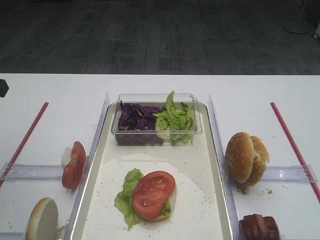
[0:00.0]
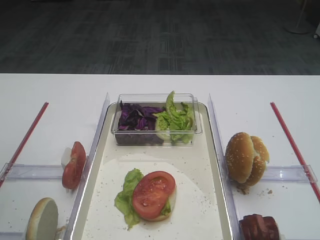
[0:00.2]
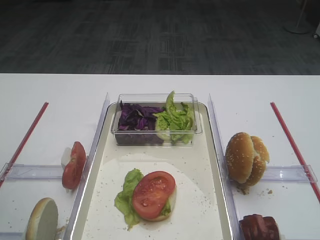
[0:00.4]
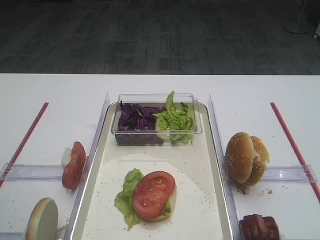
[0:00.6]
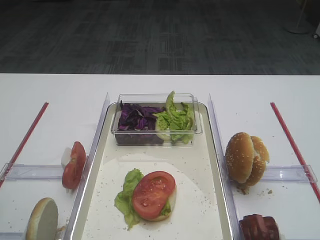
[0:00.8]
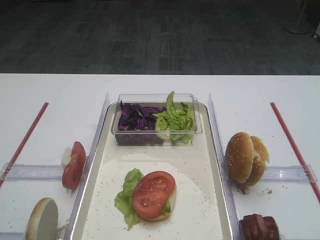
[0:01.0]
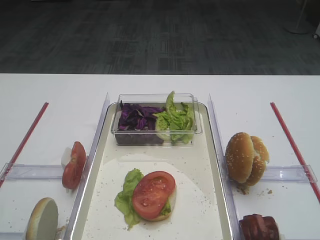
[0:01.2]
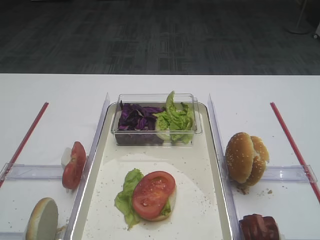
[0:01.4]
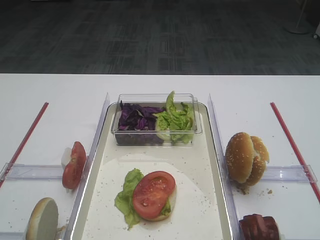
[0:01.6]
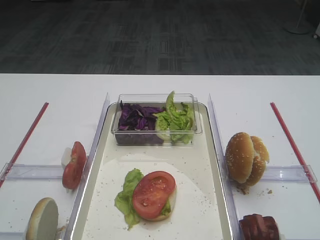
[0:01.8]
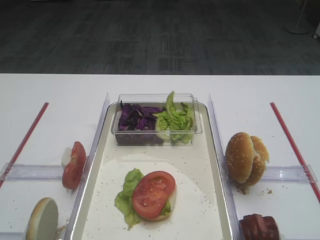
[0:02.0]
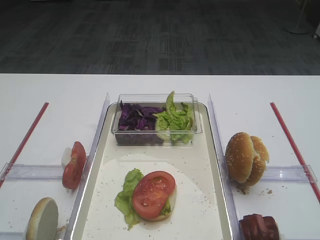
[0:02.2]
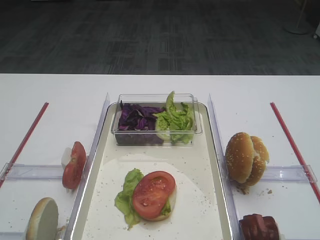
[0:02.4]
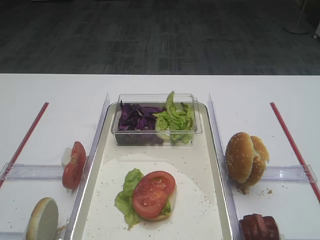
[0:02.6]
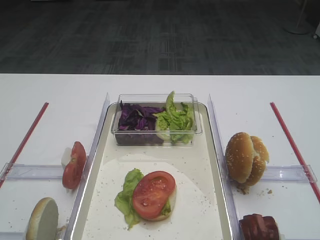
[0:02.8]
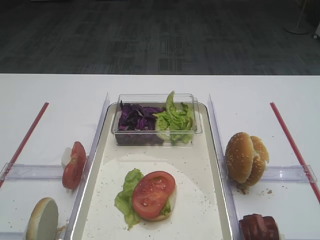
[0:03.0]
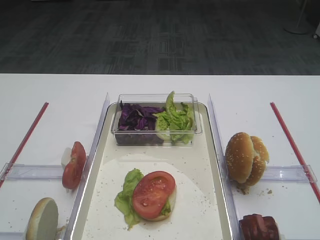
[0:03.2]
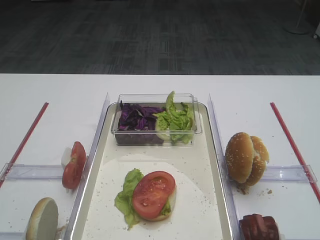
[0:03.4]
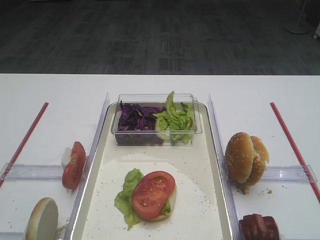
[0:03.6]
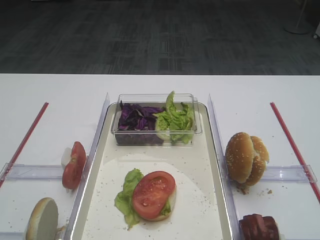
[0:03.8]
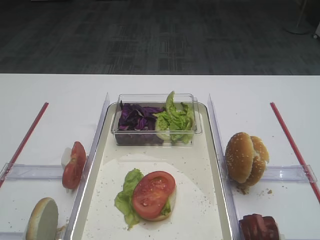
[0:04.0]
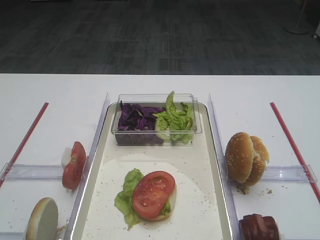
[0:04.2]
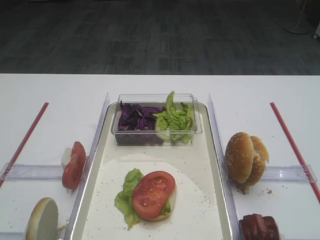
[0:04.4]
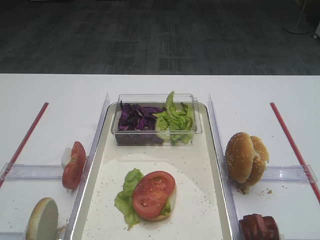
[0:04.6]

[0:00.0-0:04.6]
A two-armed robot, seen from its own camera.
0:00.0 to 0:01.6: The left gripper shifts approximately 25 cm backward.
0:03.0 to 0:04.6: Neither gripper changes place.

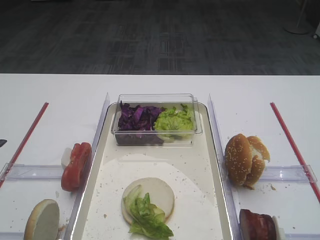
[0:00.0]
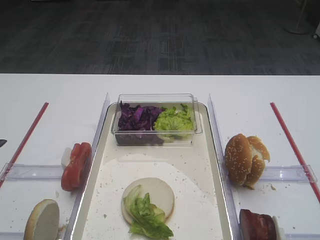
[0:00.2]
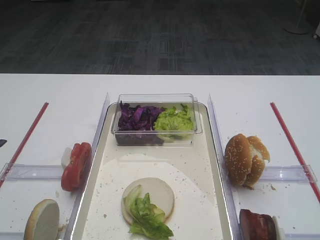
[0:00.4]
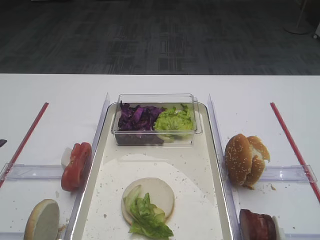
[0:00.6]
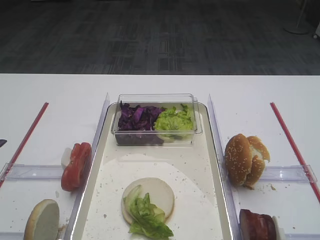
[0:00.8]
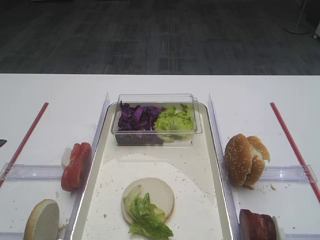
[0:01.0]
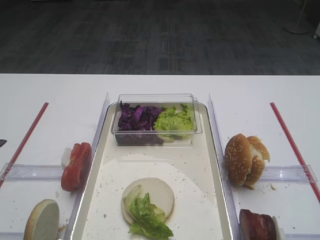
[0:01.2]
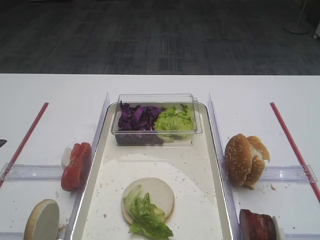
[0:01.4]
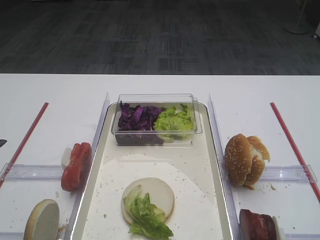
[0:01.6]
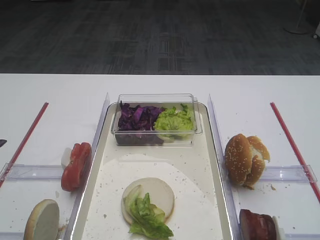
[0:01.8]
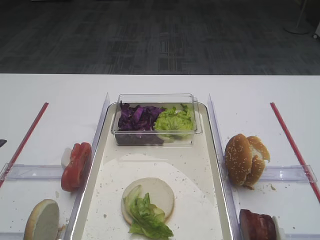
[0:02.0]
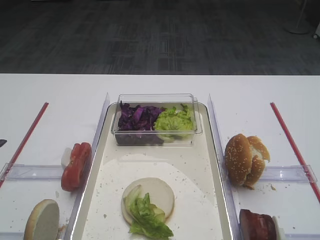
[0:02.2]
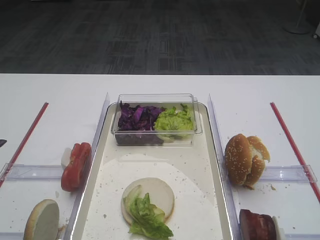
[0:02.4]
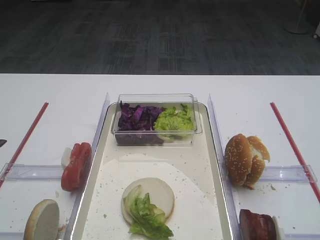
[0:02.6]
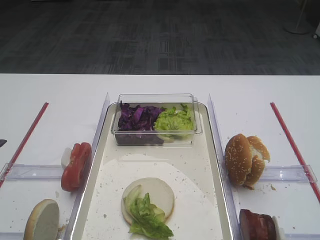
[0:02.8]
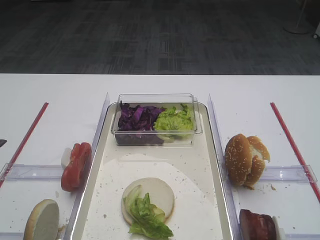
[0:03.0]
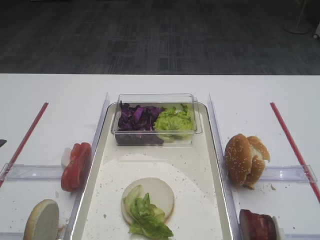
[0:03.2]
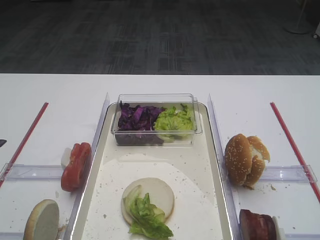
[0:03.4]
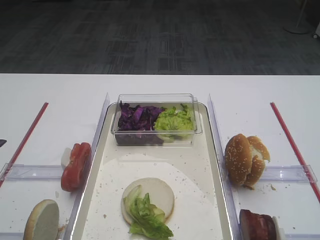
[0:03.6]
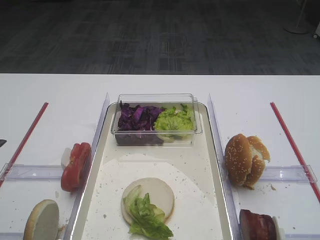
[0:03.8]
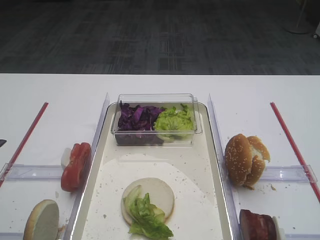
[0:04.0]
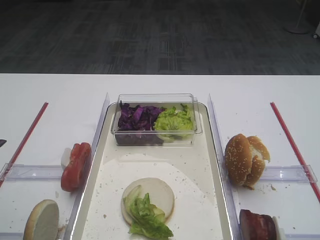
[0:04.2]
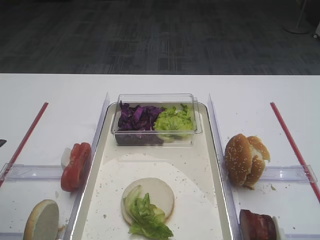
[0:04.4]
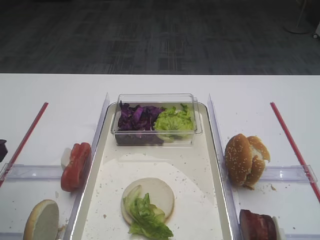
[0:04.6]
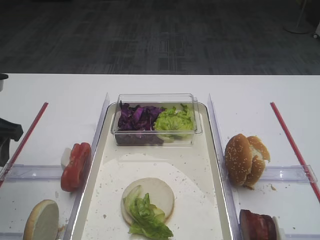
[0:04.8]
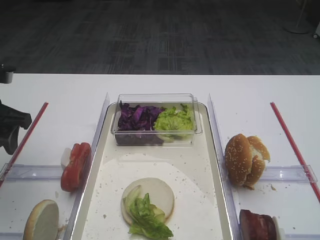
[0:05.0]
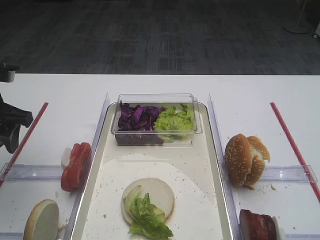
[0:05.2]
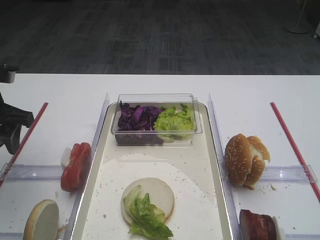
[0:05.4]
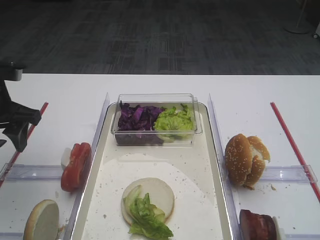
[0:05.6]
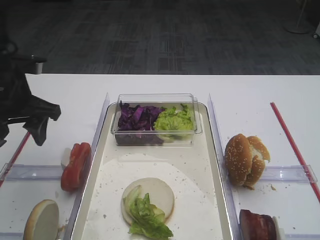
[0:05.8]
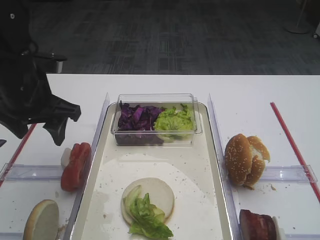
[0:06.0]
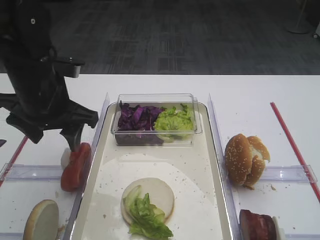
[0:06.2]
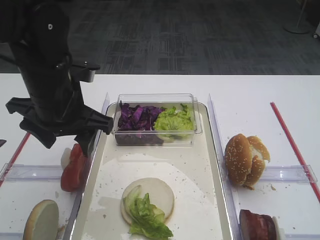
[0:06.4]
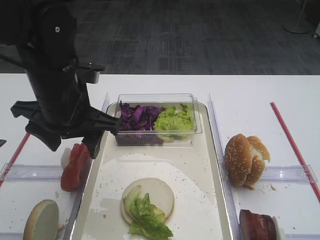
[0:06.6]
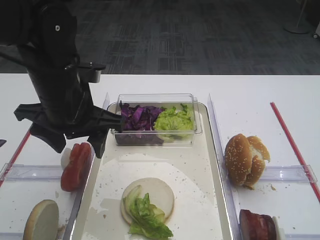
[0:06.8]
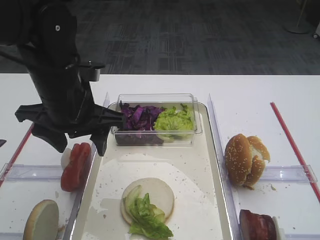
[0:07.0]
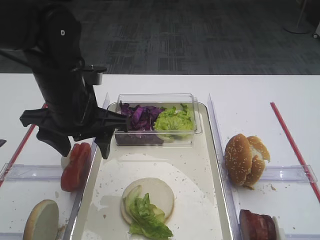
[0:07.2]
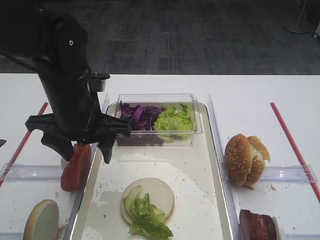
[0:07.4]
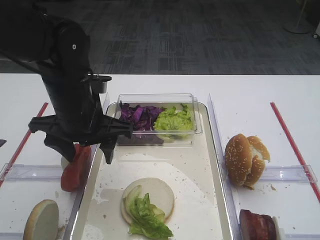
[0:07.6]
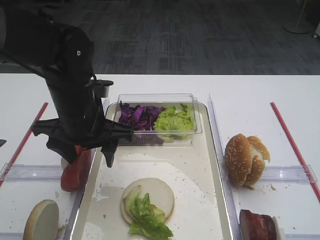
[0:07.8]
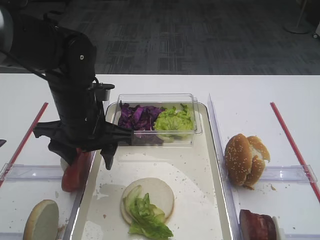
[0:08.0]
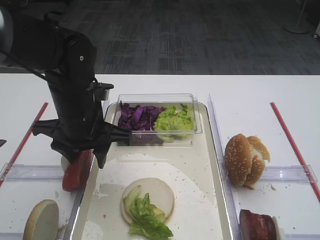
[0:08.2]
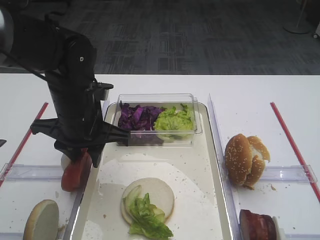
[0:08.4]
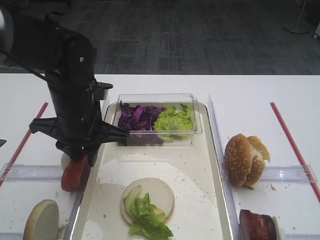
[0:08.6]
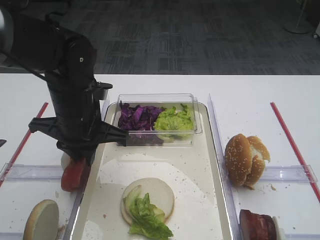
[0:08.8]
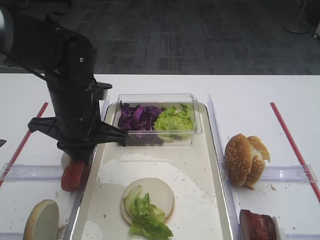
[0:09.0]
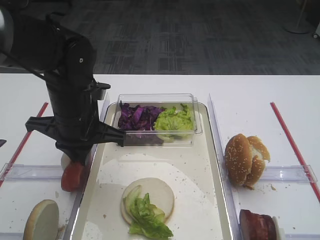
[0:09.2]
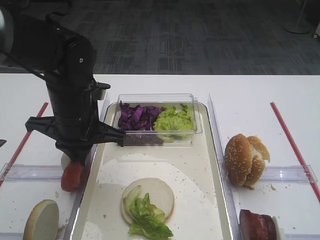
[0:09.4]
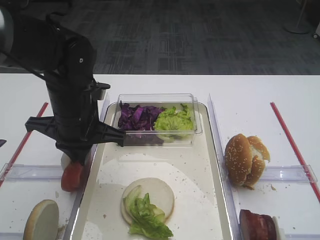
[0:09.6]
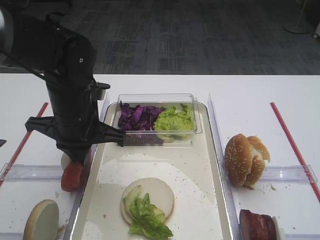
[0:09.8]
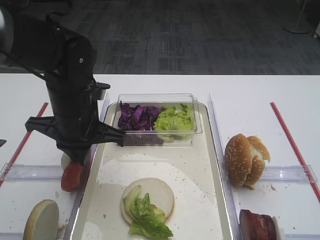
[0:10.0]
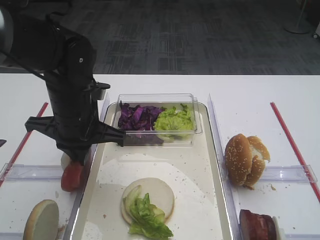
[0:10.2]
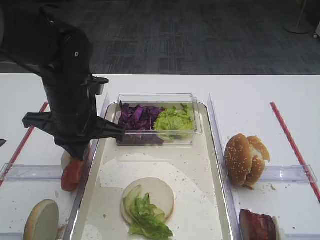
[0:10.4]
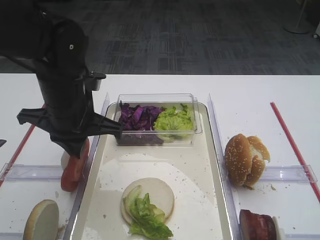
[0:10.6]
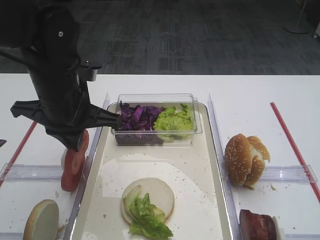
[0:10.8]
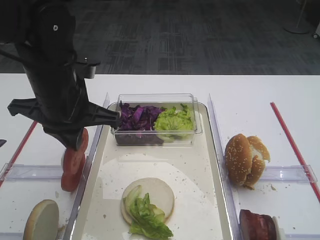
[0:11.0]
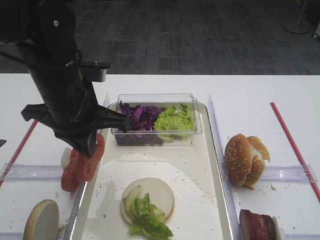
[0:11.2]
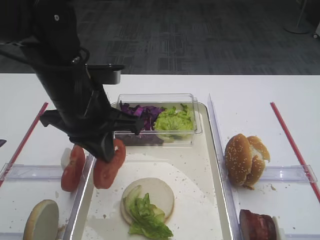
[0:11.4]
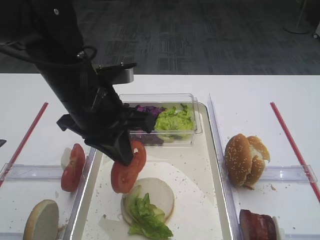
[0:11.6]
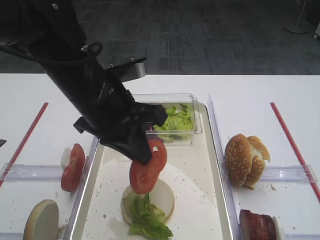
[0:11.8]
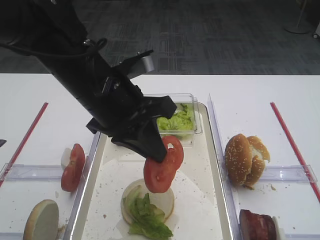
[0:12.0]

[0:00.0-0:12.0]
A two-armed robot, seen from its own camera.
Step, 0:00.0 to 0:10.6: Pick up the tomato slice with the left gripper.
0:04.4 to 0:06.0: The left gripper moves forward and to the right, some 15 cm.
0:06.0 to 0:07.6: The left gripper heads to the right, covering some 10 cm.
0:07.6 to 0:09.0: The left gripper closes.
0:09.0 to 0:10.4: Both grippers stay about where they are.
0:10.4 to 0:12.0: The left gripper is displaced upward and to the right by roughly 10 cm.

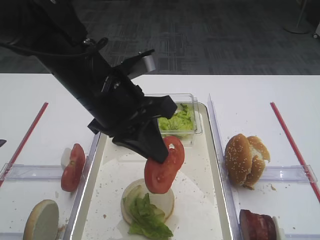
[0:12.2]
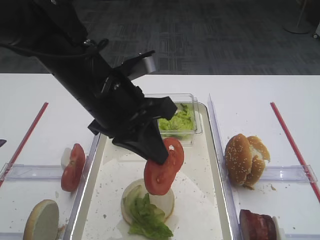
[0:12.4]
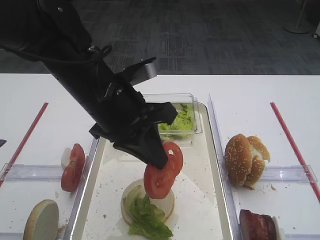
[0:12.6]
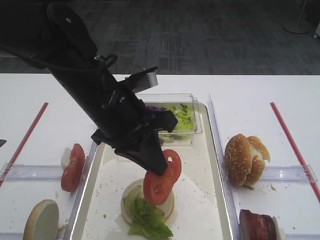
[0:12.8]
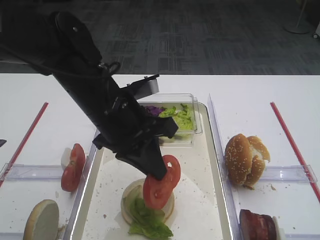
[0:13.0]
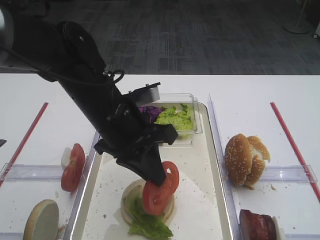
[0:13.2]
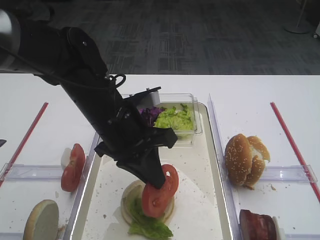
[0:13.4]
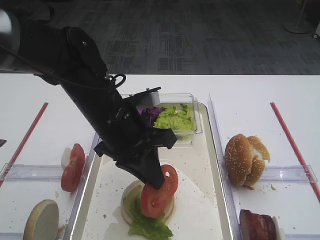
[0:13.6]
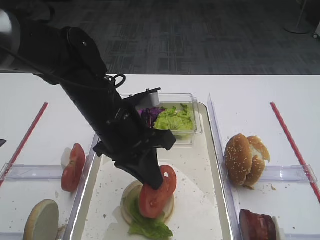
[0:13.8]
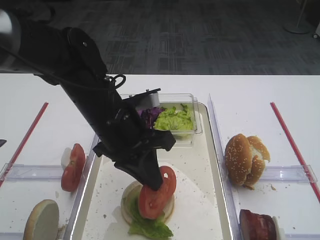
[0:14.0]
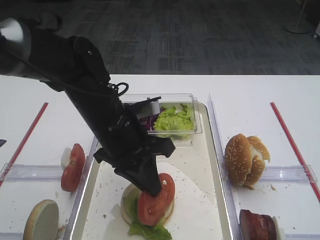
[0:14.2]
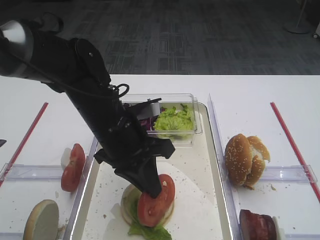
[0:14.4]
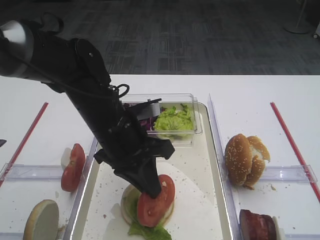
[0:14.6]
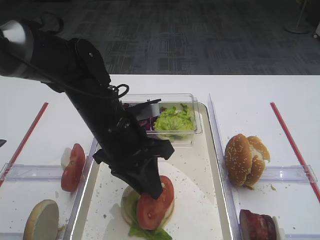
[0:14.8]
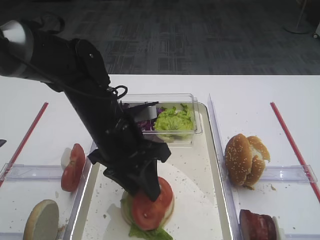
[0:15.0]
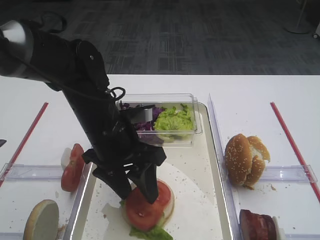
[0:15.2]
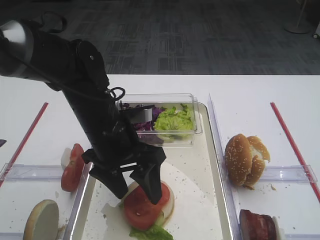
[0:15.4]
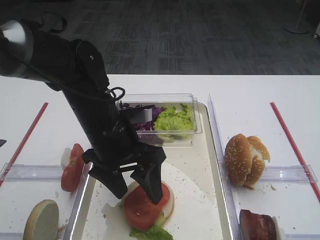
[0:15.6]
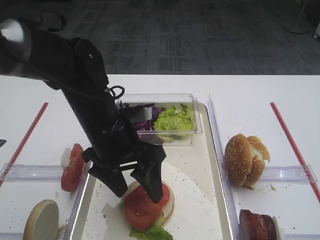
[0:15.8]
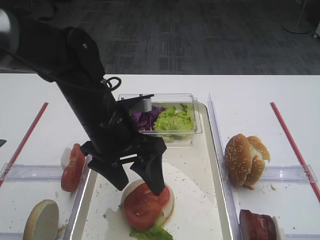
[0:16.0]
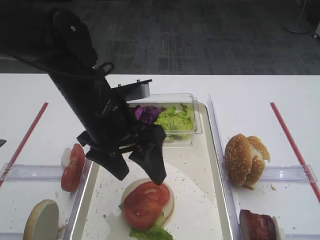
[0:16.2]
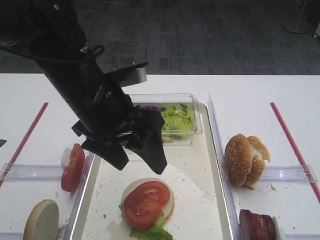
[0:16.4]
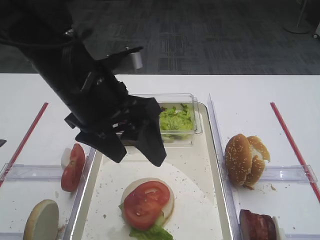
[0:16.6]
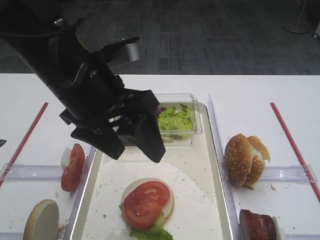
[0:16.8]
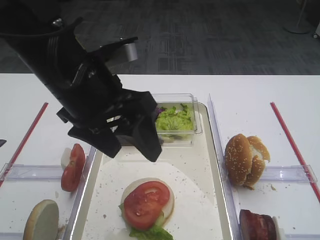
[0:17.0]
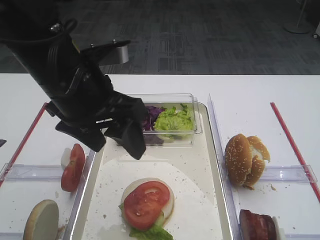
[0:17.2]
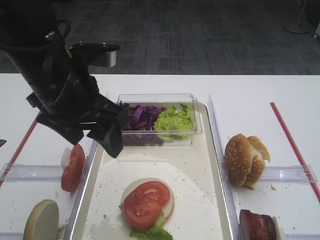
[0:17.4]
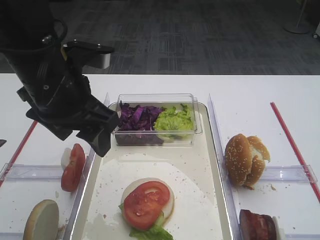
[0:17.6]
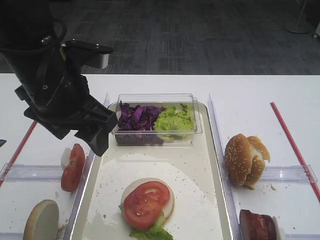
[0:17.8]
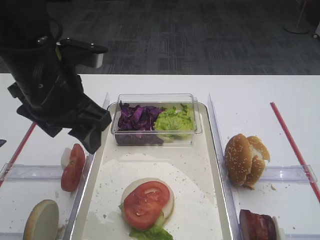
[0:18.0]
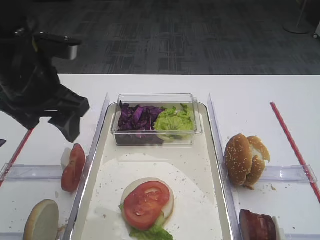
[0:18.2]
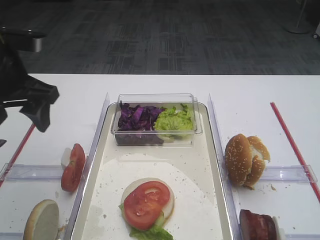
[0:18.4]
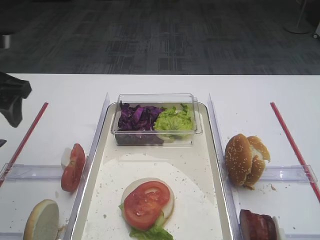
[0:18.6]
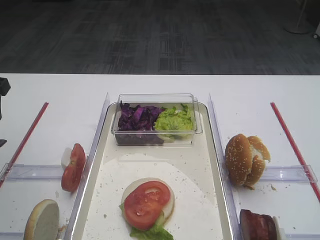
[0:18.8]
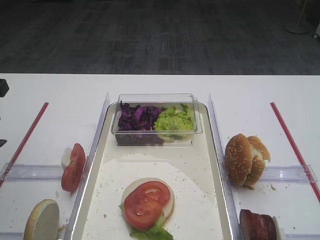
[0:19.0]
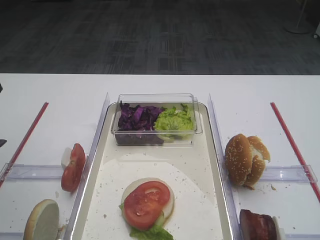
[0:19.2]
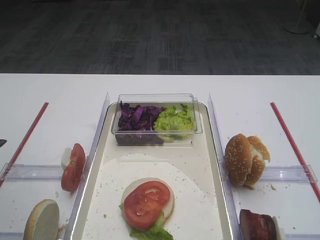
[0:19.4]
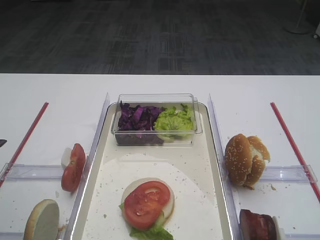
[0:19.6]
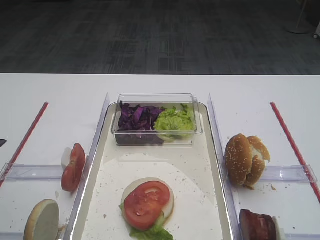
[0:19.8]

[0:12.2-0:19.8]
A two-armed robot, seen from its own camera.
Step, 0:12.2 to 0:15.8: Place the tomato slice on the lettuce leaf with the left gripper.
0:12.2 to 0:13.8: The left gripper heads downward, covering approximately 5 cm.
0:13.8 to 0:15.2: The left gripper opens.
0:15.2 to 0:16.8: The left gripper is displaced upward by some 10 cm.
0:16.8 to 0:18.2: The left gripper travels to the left by some 5 cm.
0:18.2 to 0:19.8: The left gripper heads to the left and backward, covering some 15 cm.
